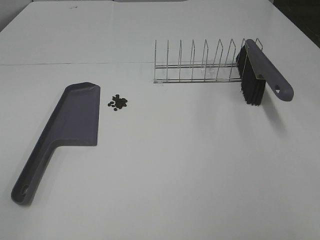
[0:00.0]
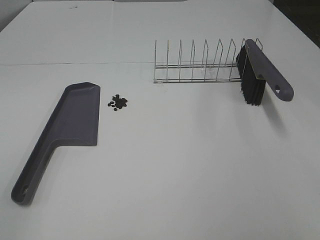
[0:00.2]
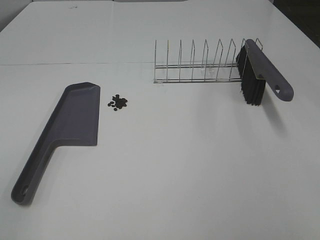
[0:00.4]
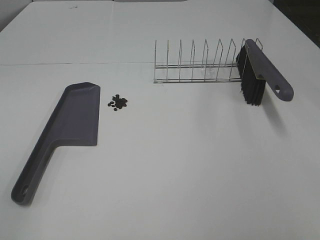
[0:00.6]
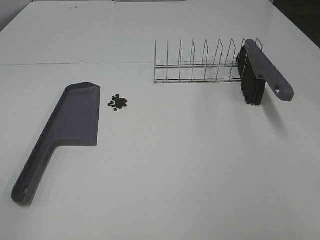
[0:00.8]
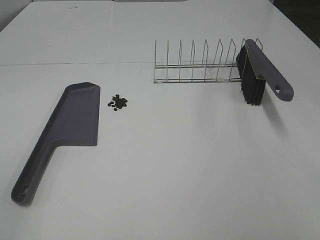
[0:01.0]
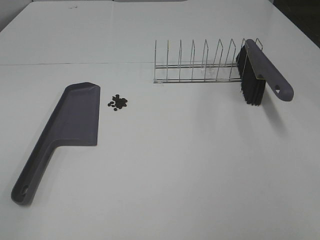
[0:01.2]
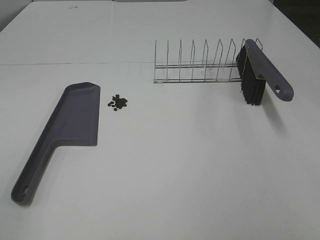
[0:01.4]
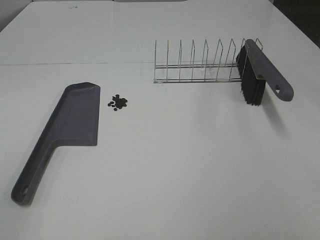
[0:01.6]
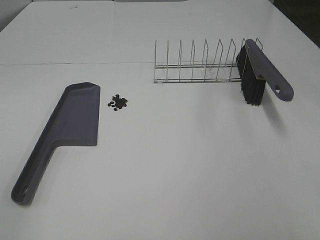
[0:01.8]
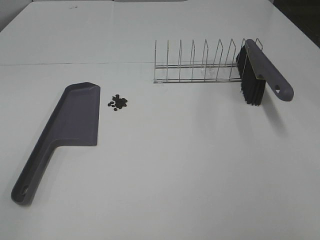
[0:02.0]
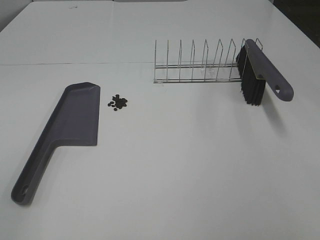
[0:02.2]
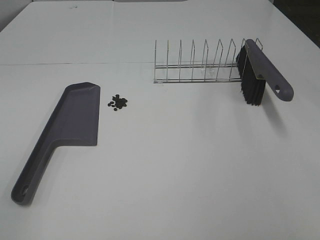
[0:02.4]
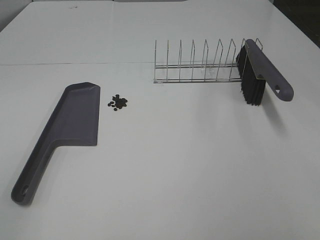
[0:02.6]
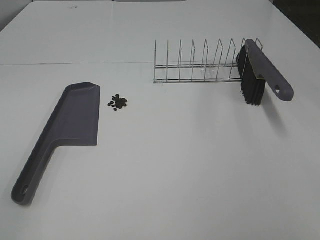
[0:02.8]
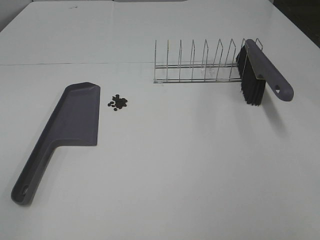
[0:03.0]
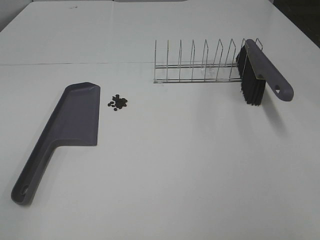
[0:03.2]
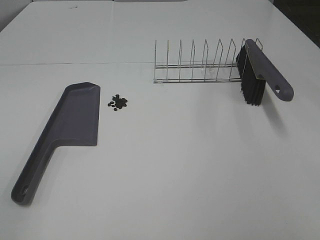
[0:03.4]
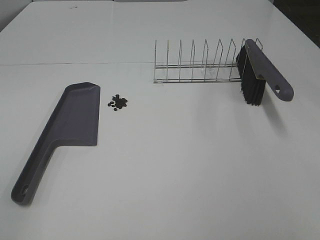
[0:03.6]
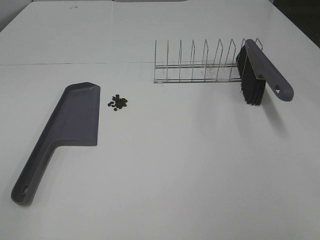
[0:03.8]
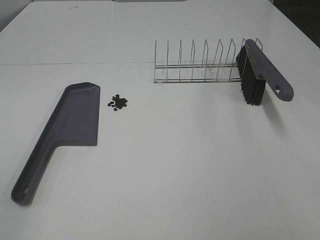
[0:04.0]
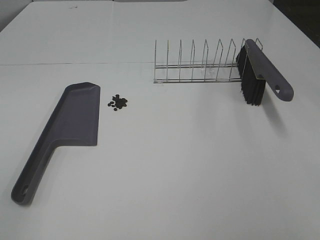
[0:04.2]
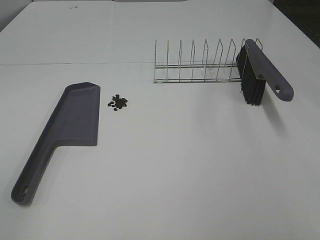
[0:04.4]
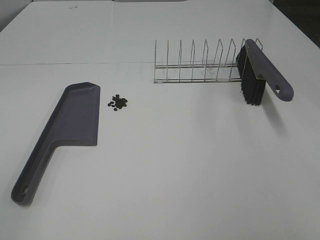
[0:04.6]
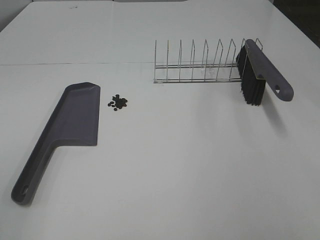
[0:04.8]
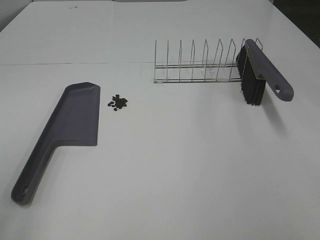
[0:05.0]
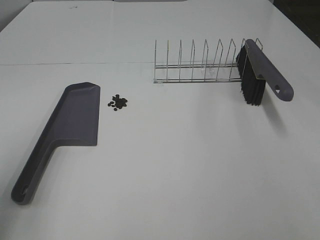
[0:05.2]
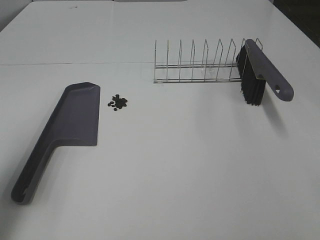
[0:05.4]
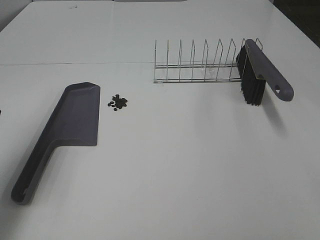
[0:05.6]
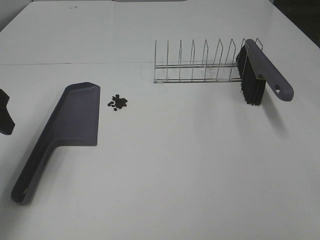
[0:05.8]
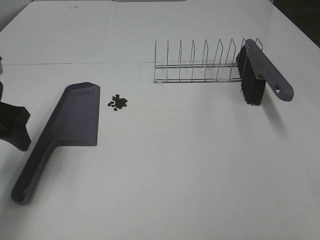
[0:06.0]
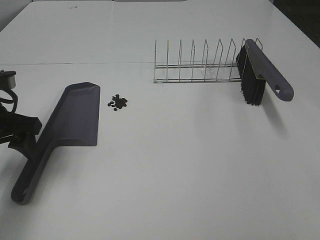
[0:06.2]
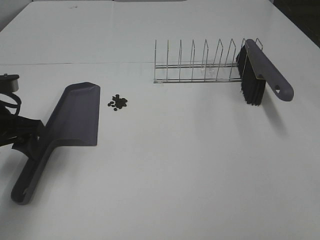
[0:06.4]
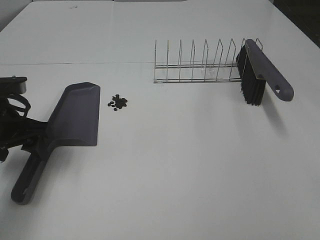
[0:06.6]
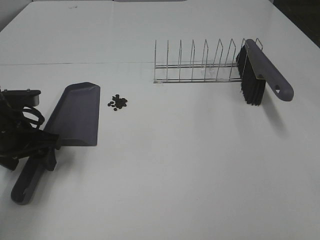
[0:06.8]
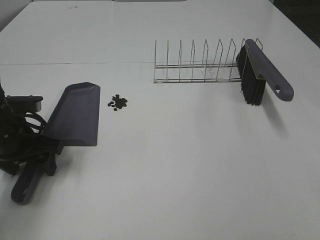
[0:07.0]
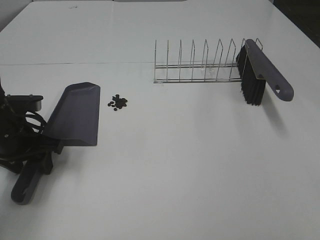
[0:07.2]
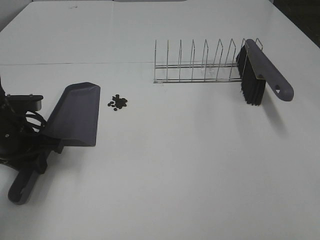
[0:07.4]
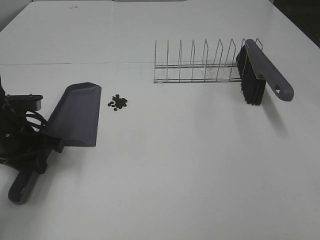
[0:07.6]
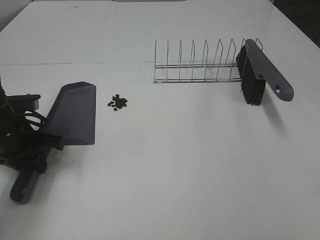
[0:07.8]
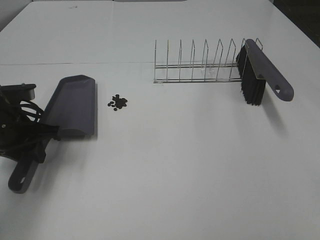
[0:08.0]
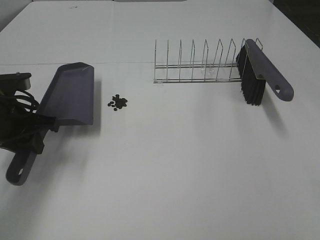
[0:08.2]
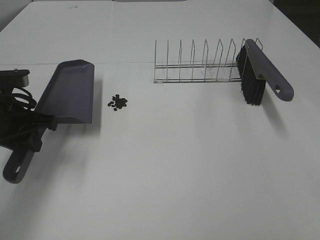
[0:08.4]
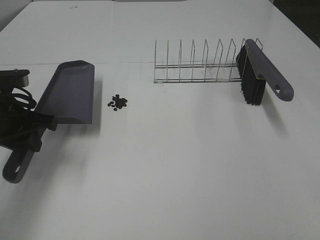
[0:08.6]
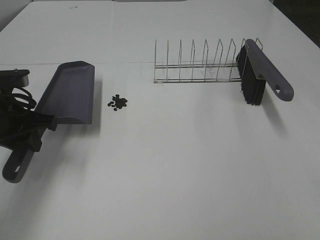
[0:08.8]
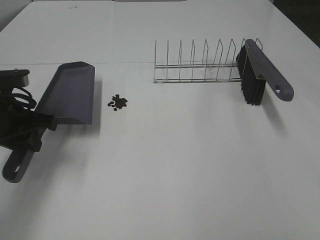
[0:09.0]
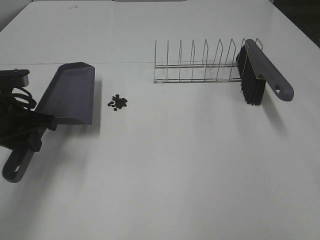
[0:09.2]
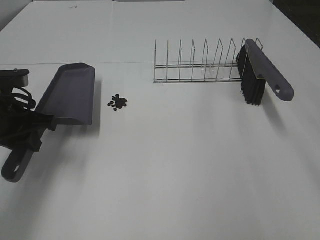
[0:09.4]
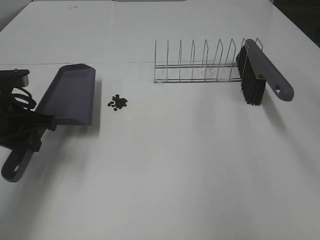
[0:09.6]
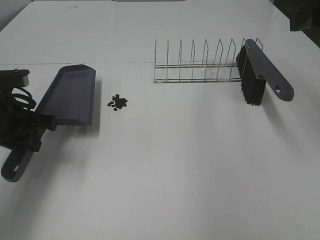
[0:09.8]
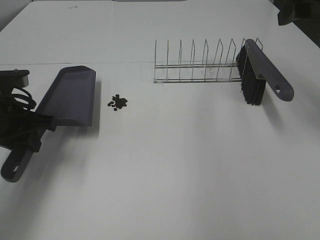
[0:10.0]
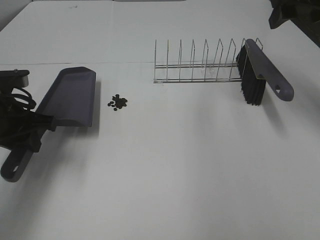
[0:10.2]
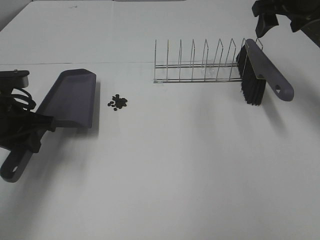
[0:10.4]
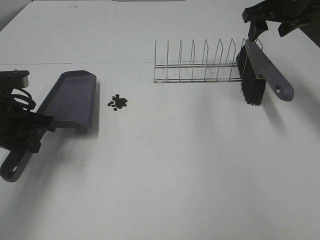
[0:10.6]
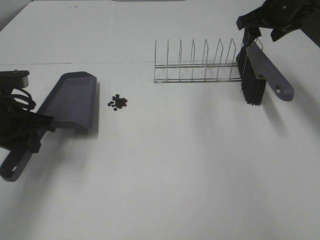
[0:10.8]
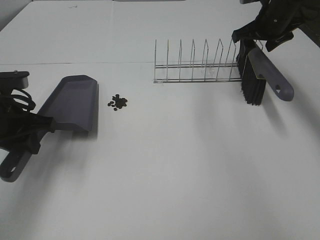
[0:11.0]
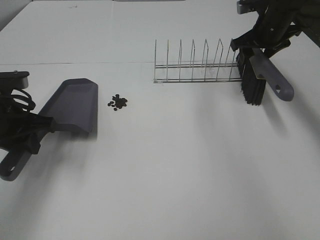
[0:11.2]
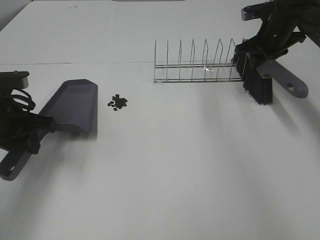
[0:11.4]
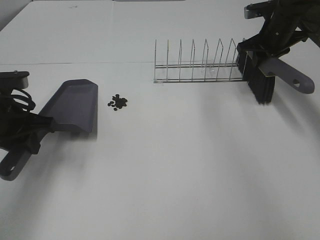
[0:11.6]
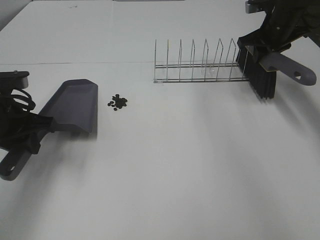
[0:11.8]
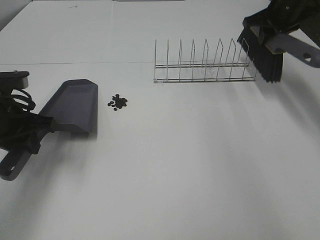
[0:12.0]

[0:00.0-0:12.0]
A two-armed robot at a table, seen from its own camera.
Task of the whole recording: Sweep Coffee Bean.
Step, 0:00.0 to 0:07.6: Left hand: grab the dustpan.
Step, 0:09.0 to 0:11.4: Right hand:grab the broom.
0:00.0 to 0:04.4: Both grippers stay put.
0:04.4 to 0:06.0: The left gripper moves forward, about 30 cm.
0:06.0 to 0:07.6: The left gripper is displaced downward by some 10 cm, and closes up.
0:07.6 to 0:09.0: The grippers stay close to where they were, moving slightly.
0:09.0 to 0:10.4: The right gripper moves forward, roughly 40 cm.
0:10.4 to 0:12.0: The right gripper travels forward by approximately 5 cm, and closes up.

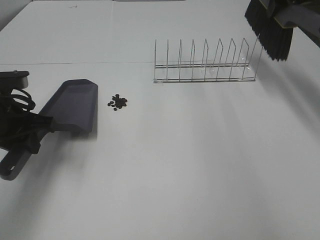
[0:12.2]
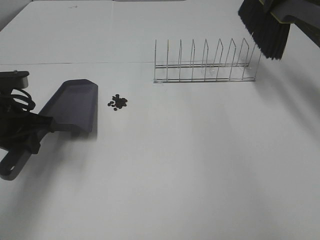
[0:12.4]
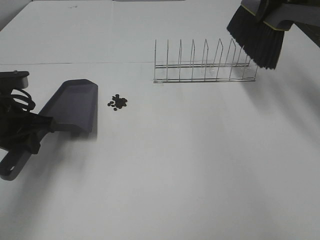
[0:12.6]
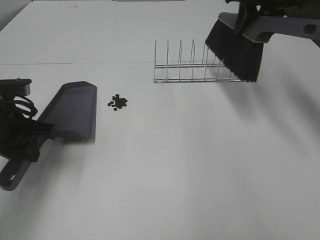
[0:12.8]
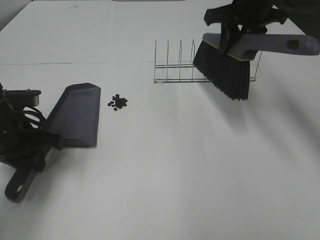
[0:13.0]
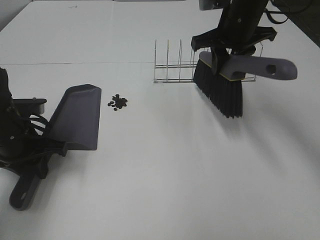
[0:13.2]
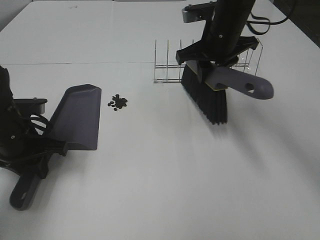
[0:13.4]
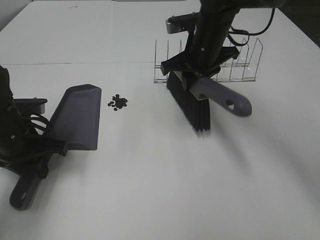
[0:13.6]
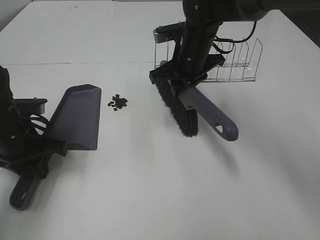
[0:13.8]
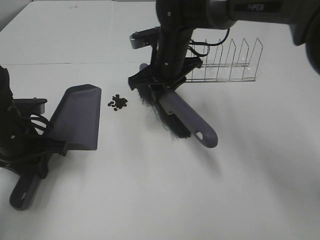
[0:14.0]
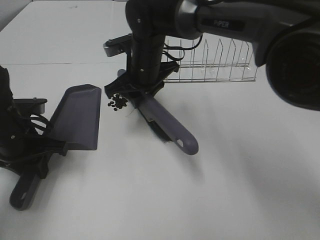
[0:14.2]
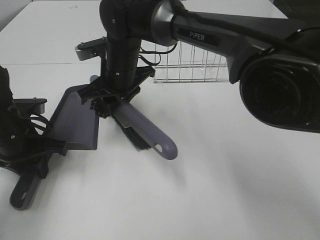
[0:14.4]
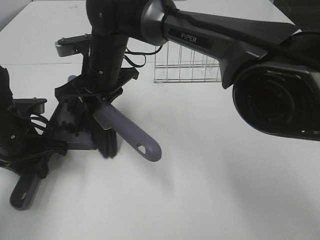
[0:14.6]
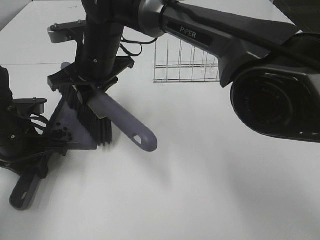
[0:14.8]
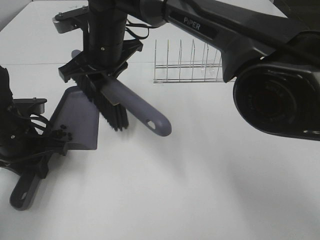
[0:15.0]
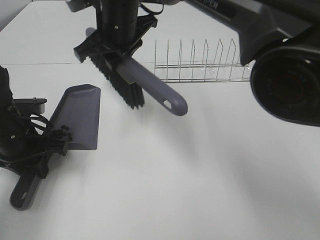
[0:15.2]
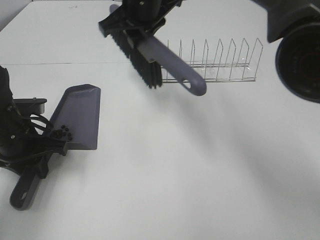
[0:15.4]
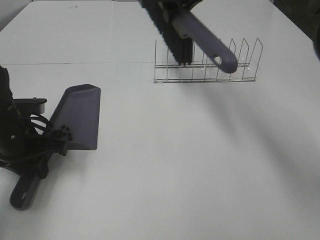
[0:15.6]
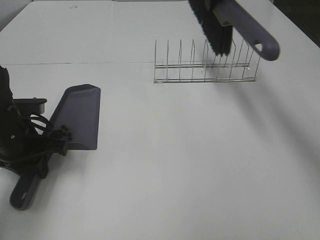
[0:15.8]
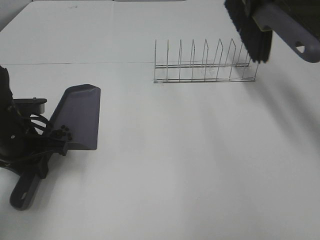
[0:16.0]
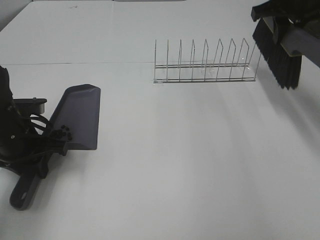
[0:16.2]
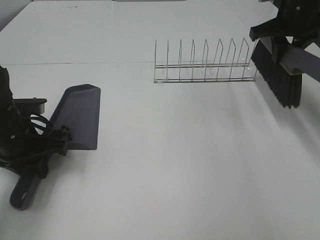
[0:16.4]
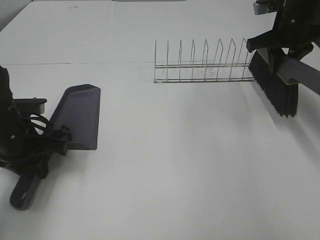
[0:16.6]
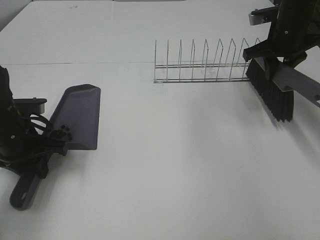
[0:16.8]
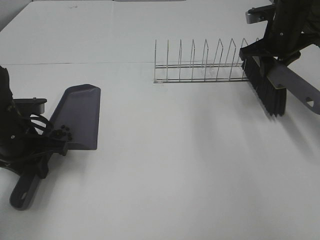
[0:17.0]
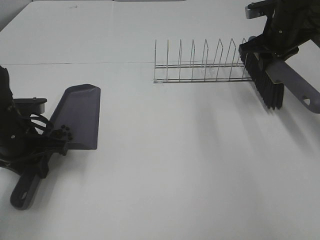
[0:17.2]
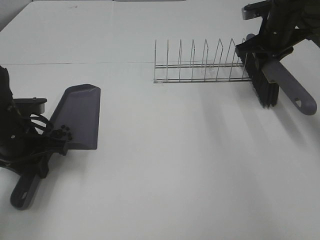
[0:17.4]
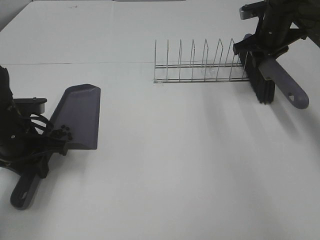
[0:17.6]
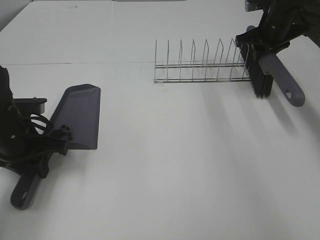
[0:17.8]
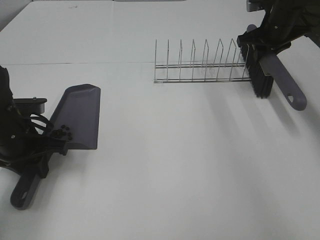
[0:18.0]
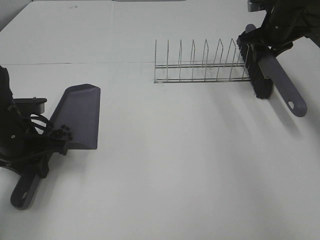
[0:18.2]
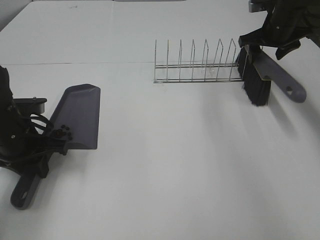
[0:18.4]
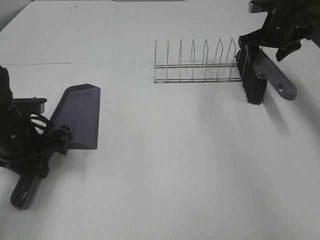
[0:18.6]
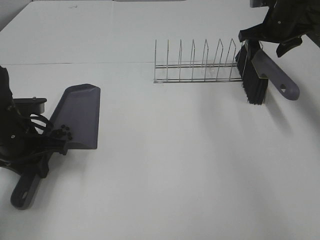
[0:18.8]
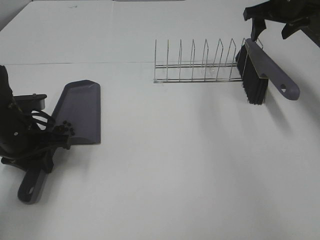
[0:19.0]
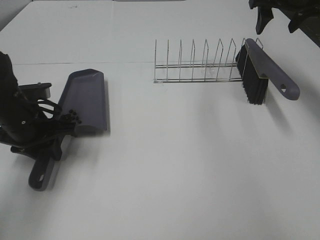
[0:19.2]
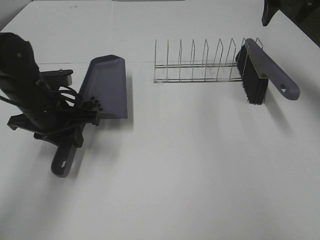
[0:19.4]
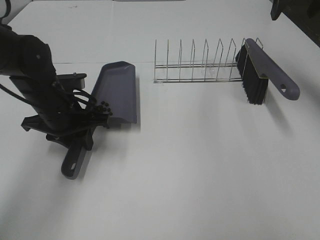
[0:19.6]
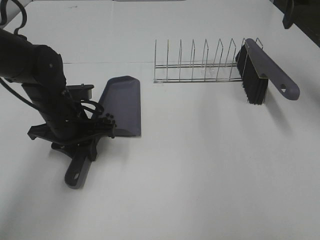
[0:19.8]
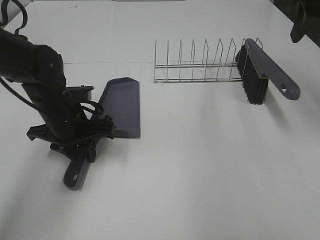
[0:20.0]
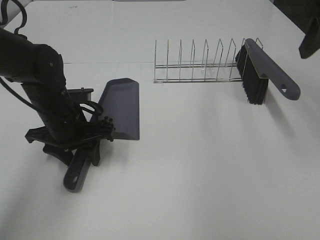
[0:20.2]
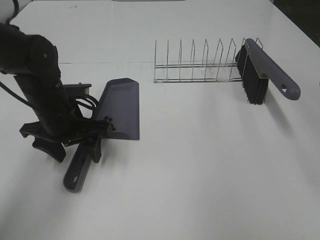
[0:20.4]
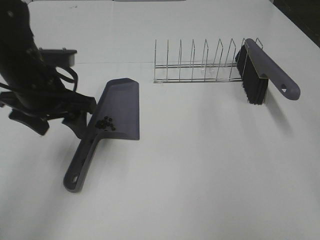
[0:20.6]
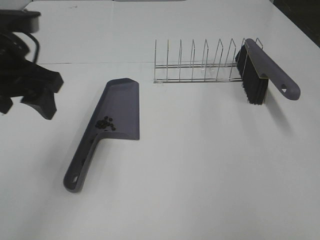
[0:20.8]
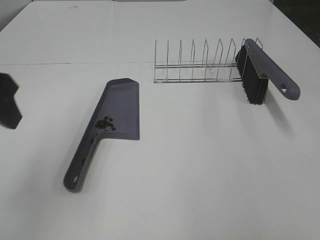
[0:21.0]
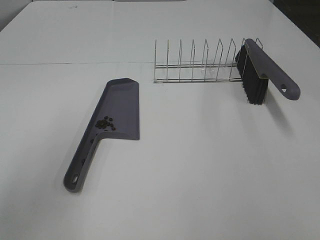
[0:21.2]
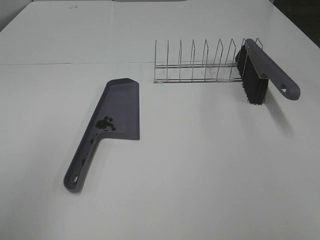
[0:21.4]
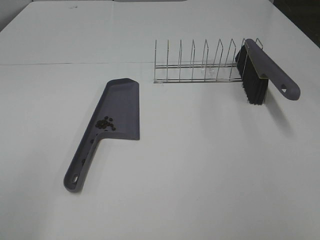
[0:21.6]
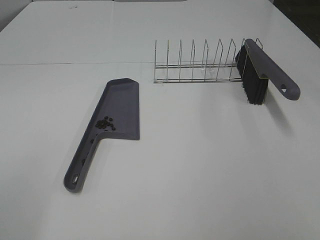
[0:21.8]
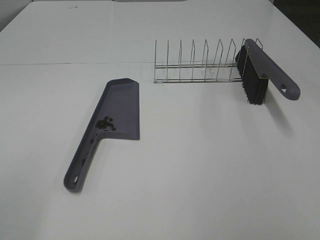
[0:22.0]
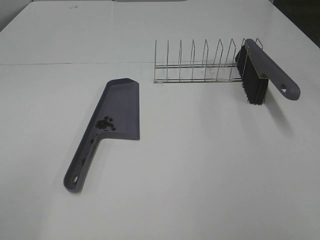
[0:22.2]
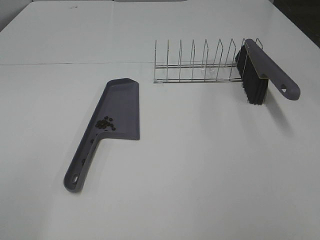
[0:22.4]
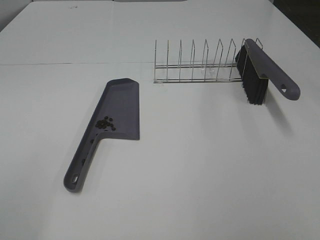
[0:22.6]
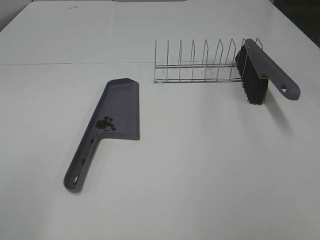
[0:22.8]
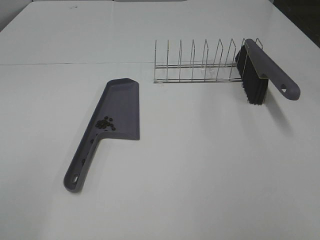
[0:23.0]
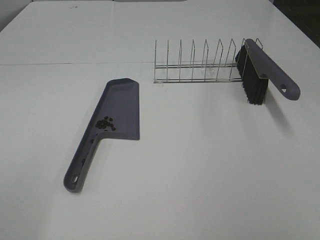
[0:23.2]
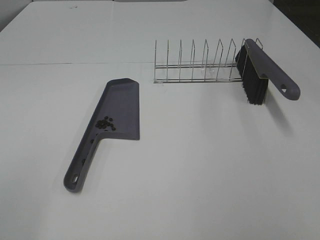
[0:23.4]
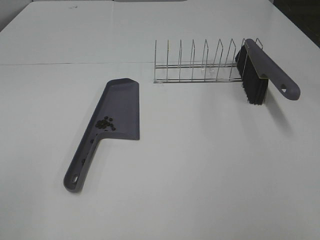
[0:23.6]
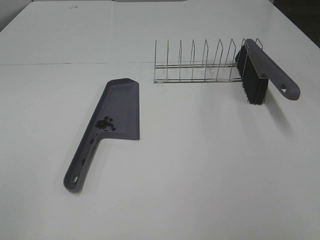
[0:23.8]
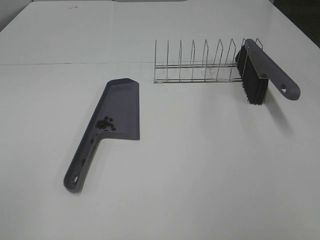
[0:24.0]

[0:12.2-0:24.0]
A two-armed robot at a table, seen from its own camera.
Task of the whole recording: Sweep Coffee Bean.
Step, 0:12.2 to 0:14.8: Right hand:sweep the coffee beans into the dustpan.
Step, 0:15.0 to 0:18.8: Right hand:place the broom on the rack.
Step, 0:19.0 to 0:20.4: Left hand:place the dustpan on the table.
0:12.2 to 0:13.6: The left gripper moves downward, approximately 5 cm. Meanwhile the right gripper shifts approximately 20 cm to the left and downward.
0:13.6 to 0:15.2: The right gripper shifts about 15 cm to the left.
0:15.2 to 0:16.6: The right gripper goes some 30 cm to the right.
0:16.6 to 0:18.2: The right gripper shifts some 5 cm forward.
0:18.2 to 0:19.6: The left gripper travels to the right by about 5 cm, while the right gripper is displaced upward and backward by roughly 15 cm, and opens.
0:19.6 to 0:21.0: The right gripper is displaced backward by about 40 cm. Meanwhile the left gripper is displaced upward and backward by approximately 20 cm, and opens its fingers.
0:21.0 to 0:22.6: The left gripper moves backward and to the left, roughly 20 cm.
